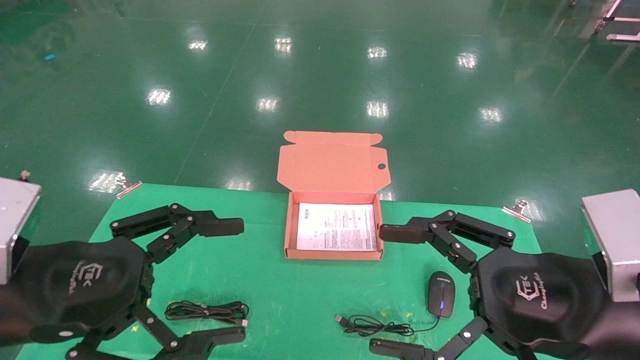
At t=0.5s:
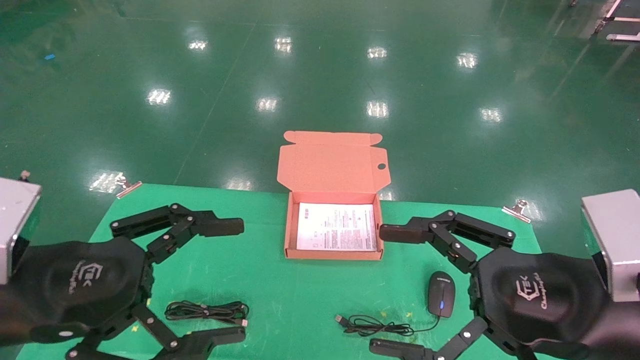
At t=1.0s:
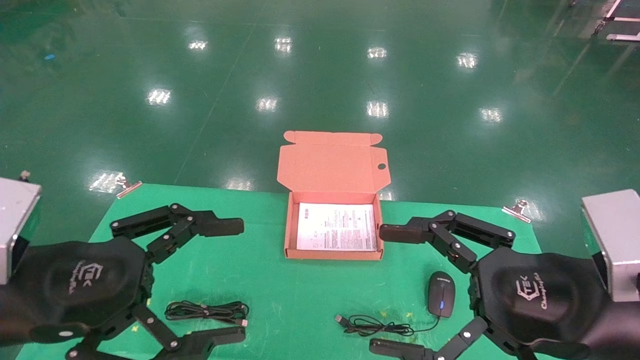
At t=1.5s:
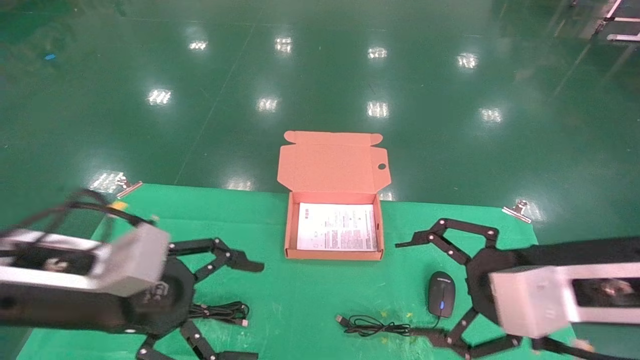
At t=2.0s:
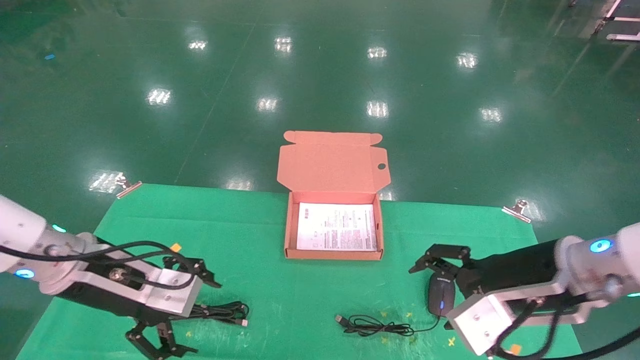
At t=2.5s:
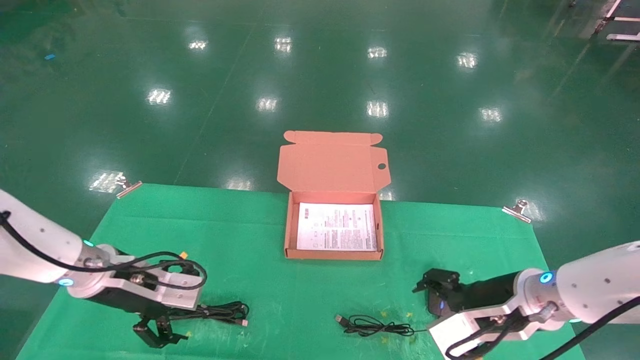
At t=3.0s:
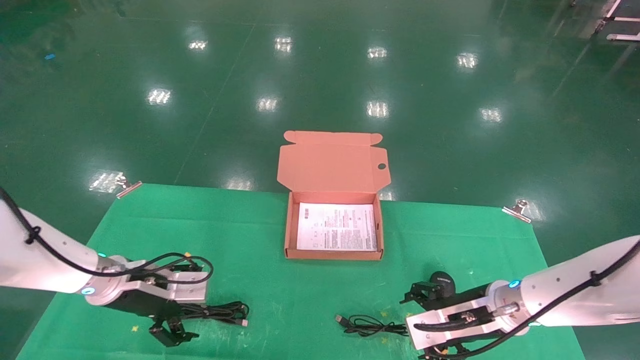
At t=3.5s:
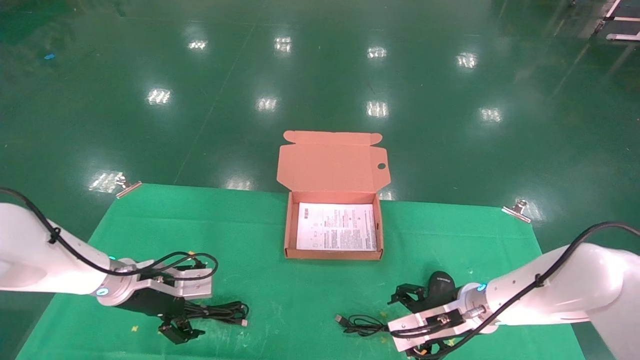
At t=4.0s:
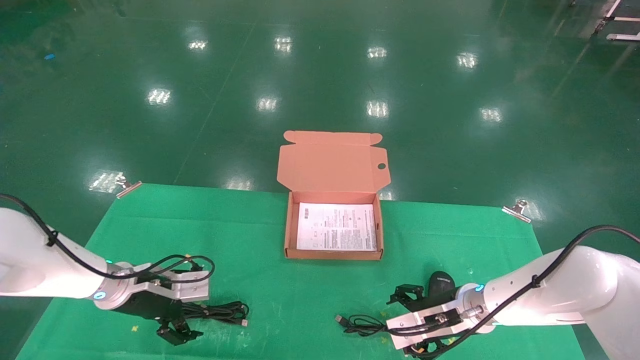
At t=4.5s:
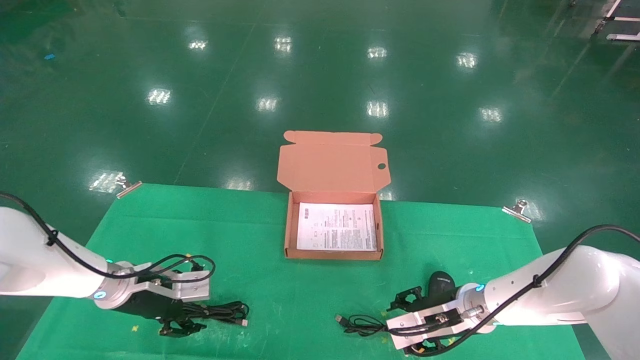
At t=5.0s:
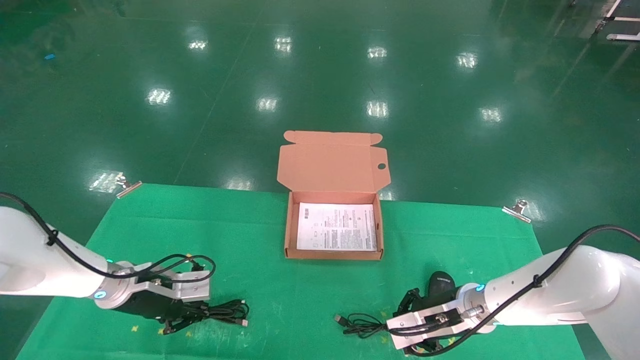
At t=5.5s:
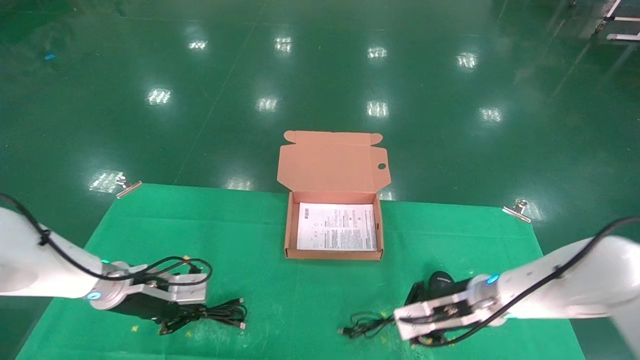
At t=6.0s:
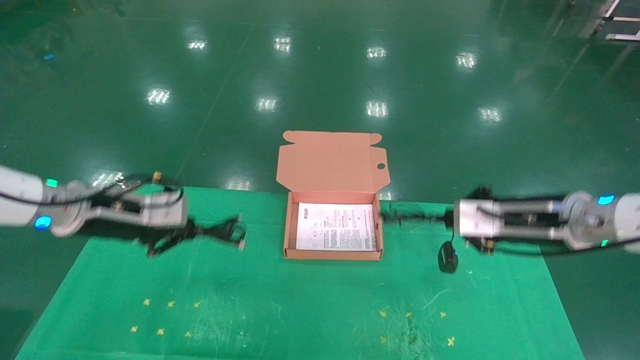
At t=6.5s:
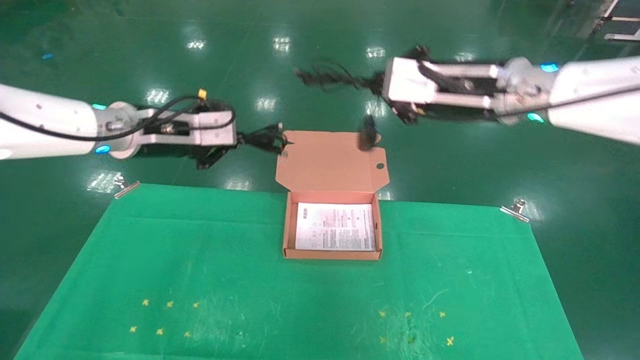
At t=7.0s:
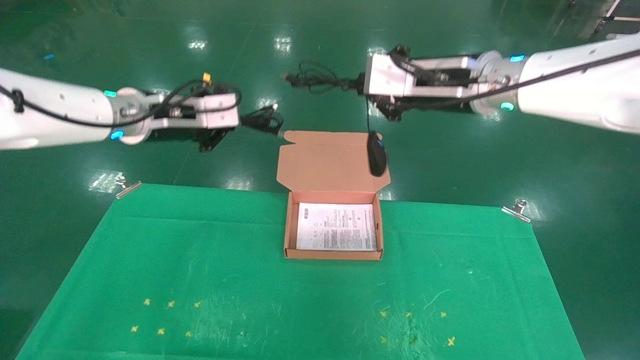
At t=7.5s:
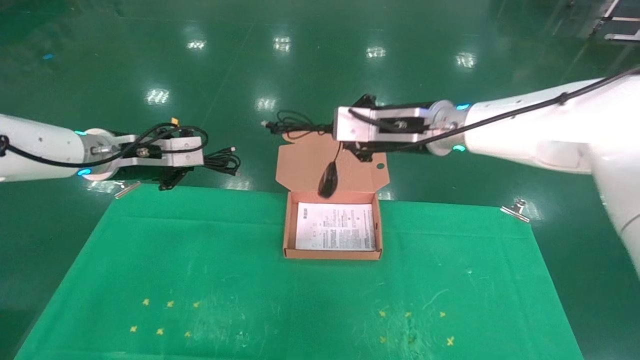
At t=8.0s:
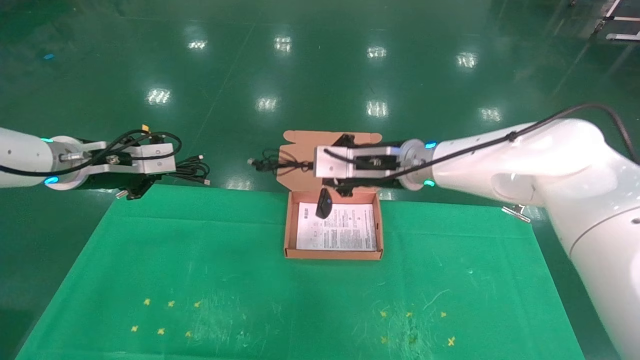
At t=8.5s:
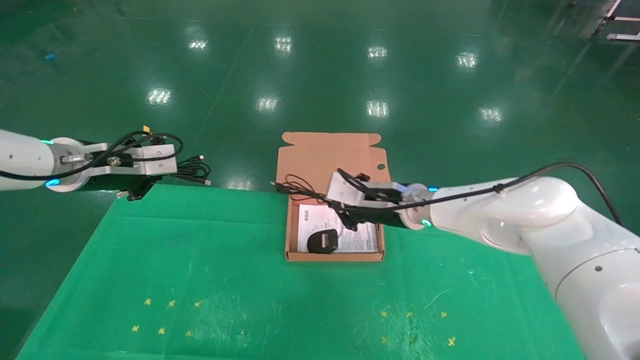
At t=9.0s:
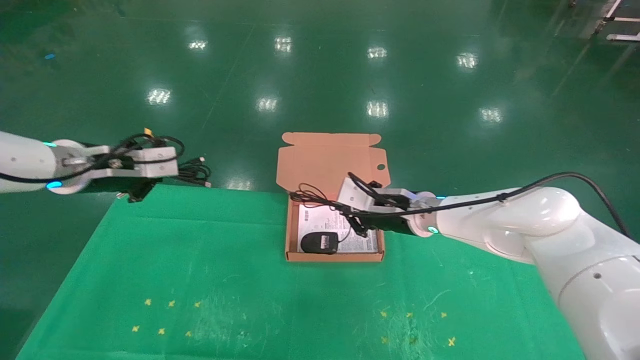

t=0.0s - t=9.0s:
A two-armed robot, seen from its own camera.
Task of the whole recording: grasp data cable left put into box grasp mouse right put into box.
Step, t=1.0s - t=5.0s: Grab and pick up both the mouse and power cord from the accessory packaging area at the same time.
t=0.0s - t=2.0s: The right gripper moves forward, about 10 cm; the left gripper goes about 15 cm forward and downward.
t=2.0s - t=4.5s: The grippers both shift downward and forward by roughly 15 cm.
t=4.5s - t=7.0s: Both grippers travel together upward, roughly 25 cm. The left gripper closes, while the right gripper closes up.
t=7.0s - t=9.0s: The right gripper goes some 15 cm downward.

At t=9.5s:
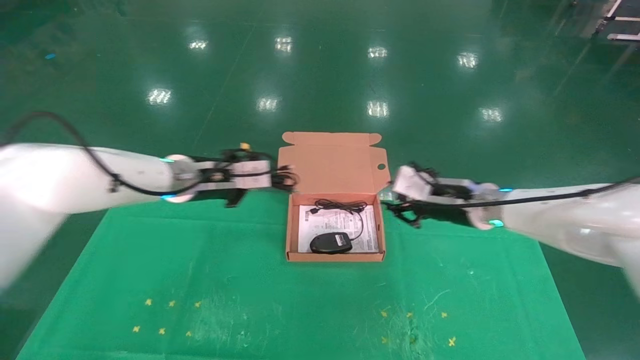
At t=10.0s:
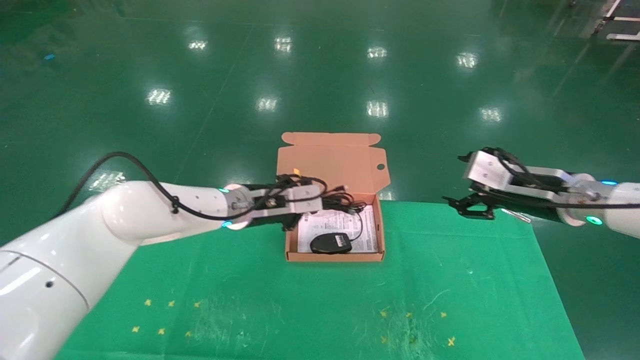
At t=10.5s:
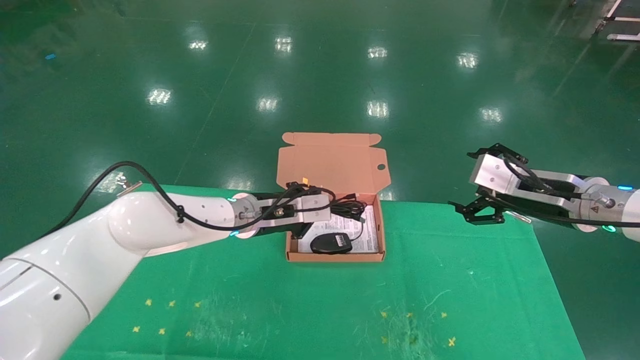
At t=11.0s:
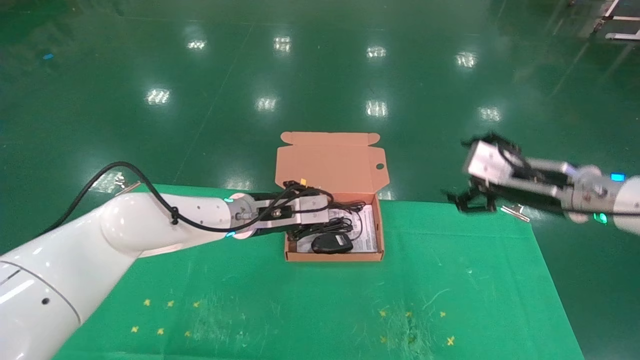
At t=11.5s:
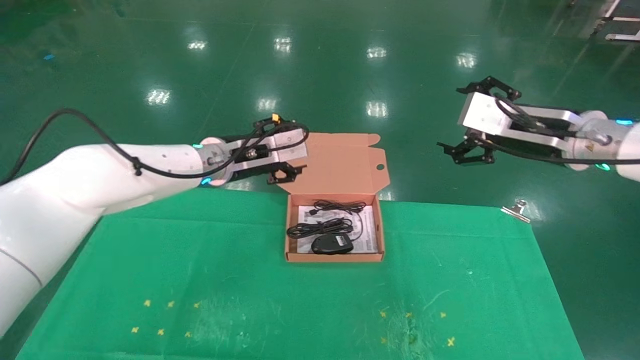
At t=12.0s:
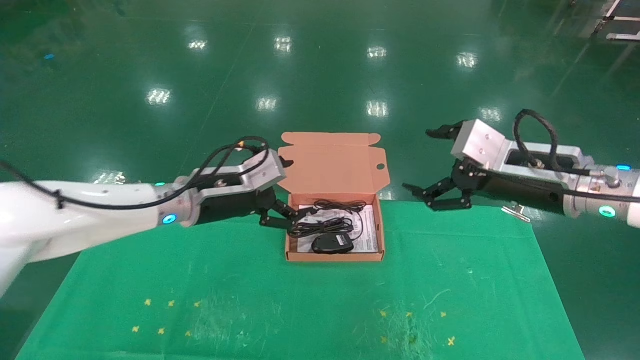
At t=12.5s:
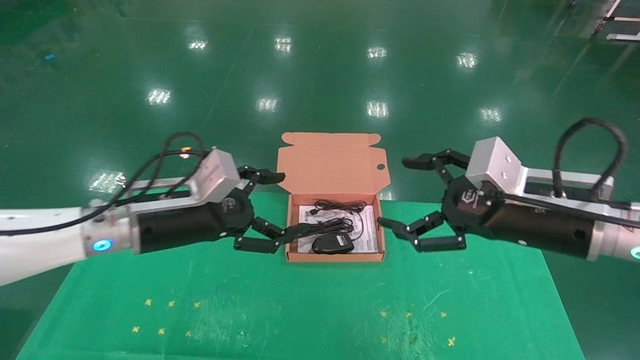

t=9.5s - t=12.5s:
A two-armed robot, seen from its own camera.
Task of the whole recording: grasp data cable left put into box grasp mouse right put into box.
t=9.5s - t=11.0s: The left gripper goes some 5 cm to the right. Meanwhile the right gripper goes approximately 10 cm backward, to the right and upward, and opens up.
t=11.0s - t=12.5s: The grippers both shift backward and to the left by approximately 15 cm. The left gripper opens.

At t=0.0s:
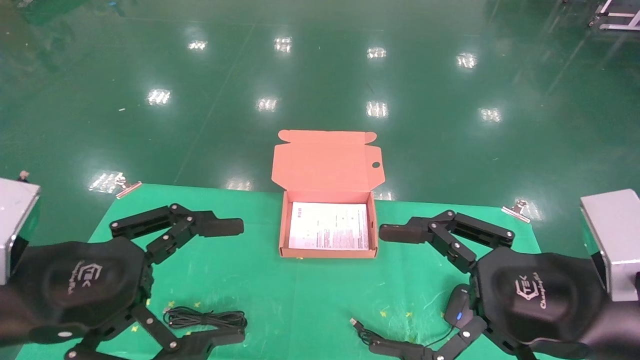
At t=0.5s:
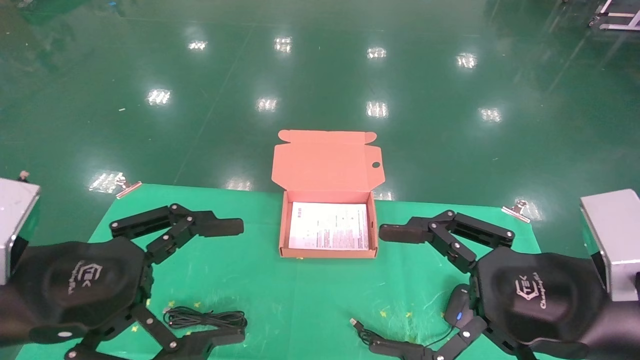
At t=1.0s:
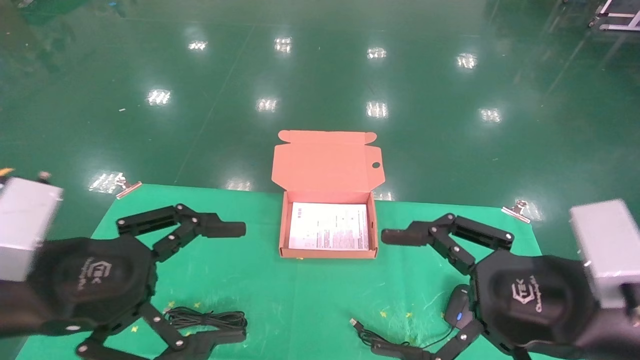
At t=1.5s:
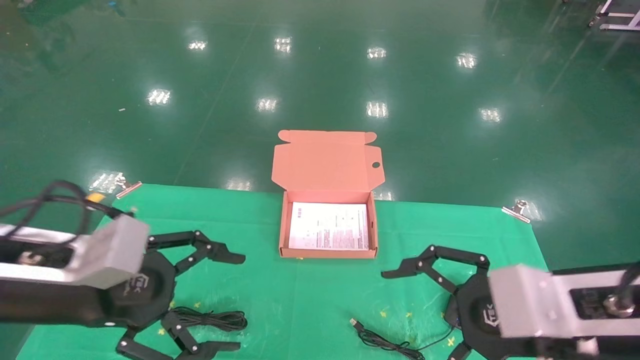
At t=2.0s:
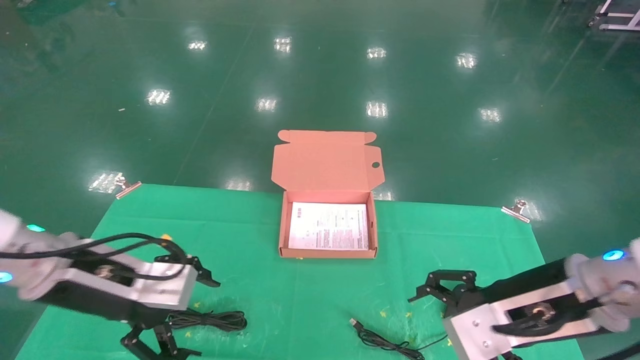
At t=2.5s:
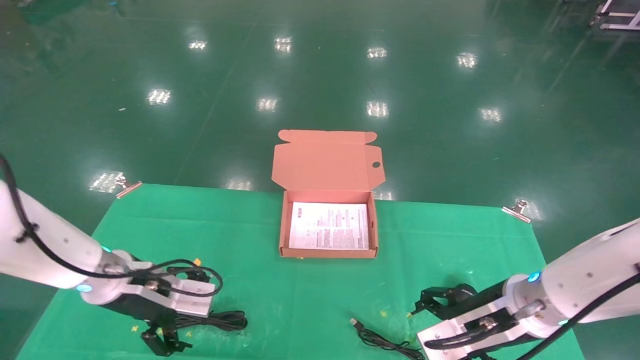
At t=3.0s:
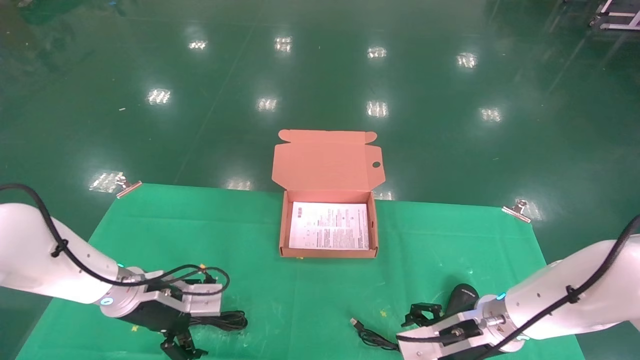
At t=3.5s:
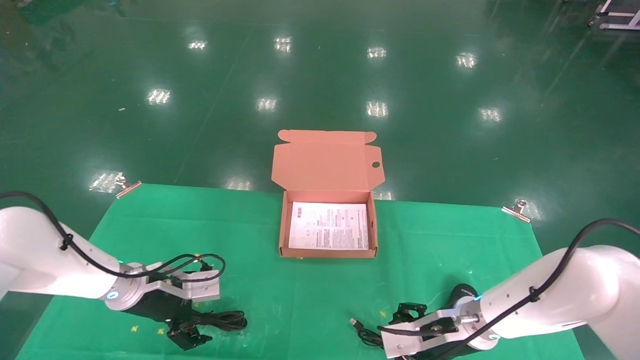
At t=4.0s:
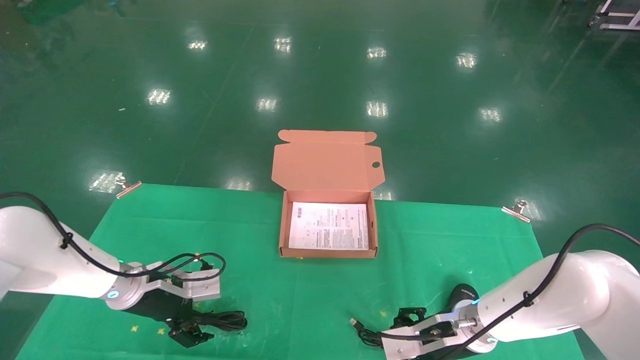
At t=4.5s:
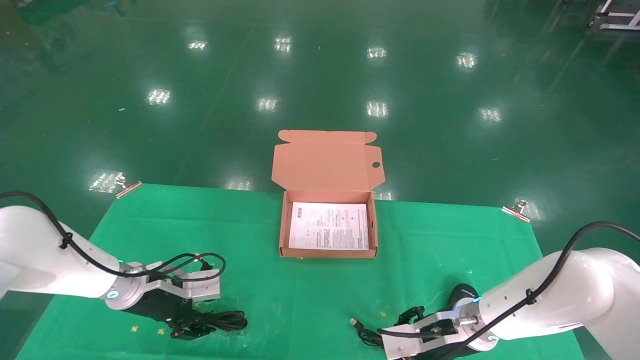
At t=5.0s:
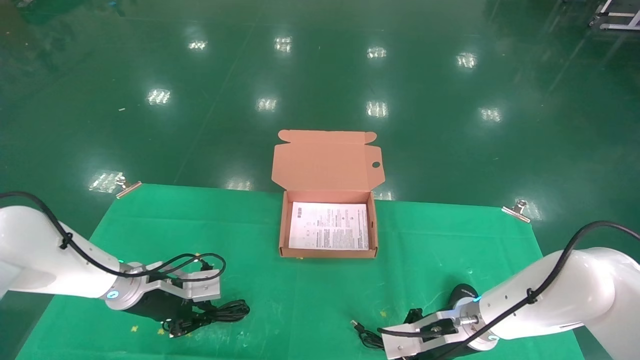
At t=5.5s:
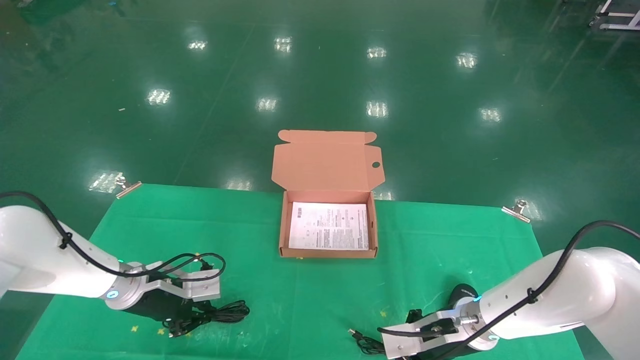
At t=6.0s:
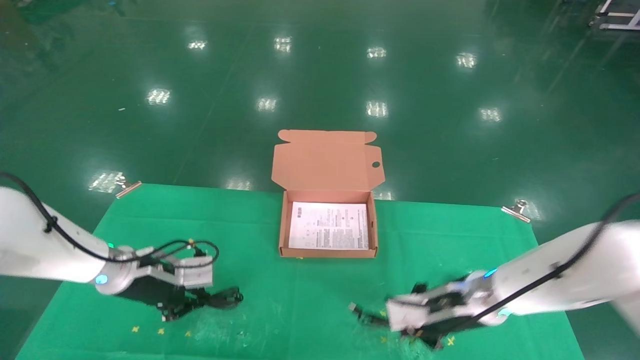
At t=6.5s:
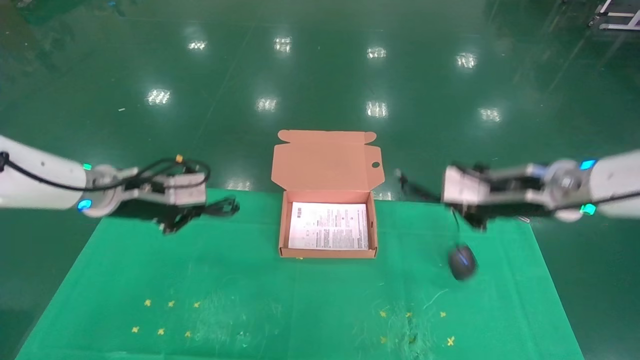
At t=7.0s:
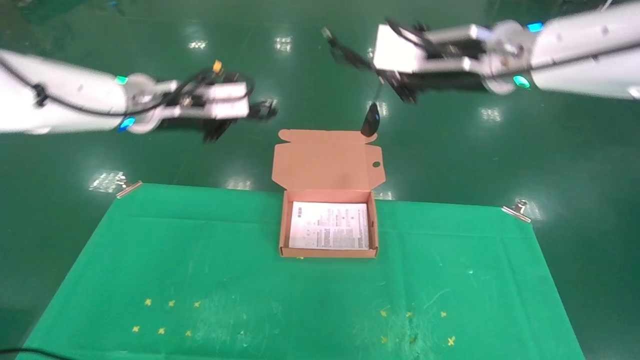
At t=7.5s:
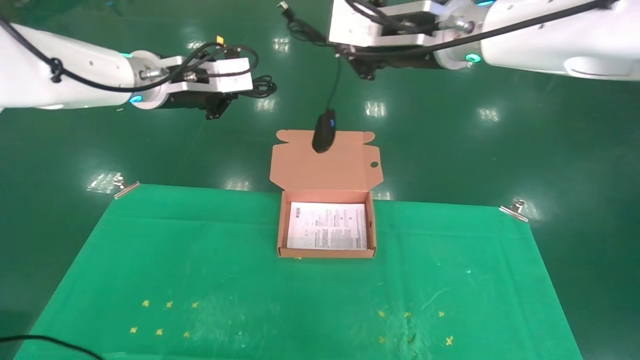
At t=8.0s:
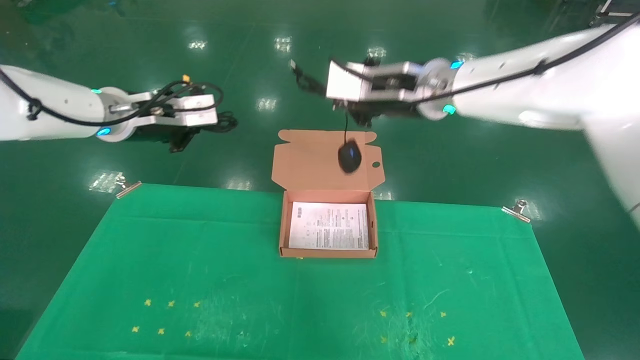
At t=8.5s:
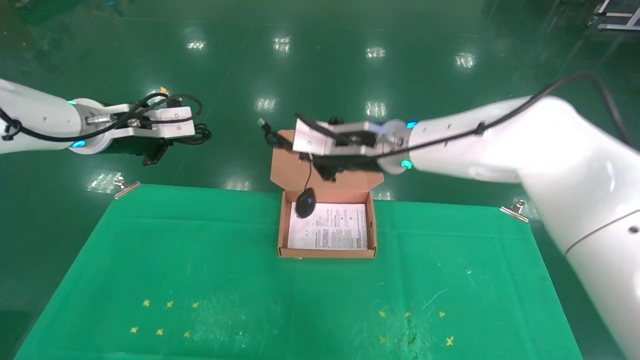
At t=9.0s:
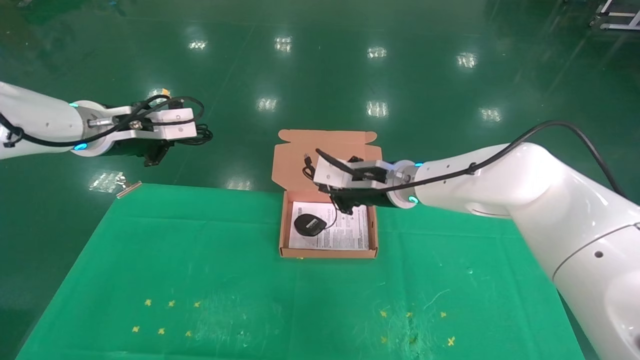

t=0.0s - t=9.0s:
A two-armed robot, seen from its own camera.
Task of the whole recording: grasp data cable left put into box grasp mouse right put into box.
Step, t=1.0s - t=6.0s: Grab and pick up both the mouse and power cord from the accessory packaging area at the same time.
t=0.0s - t=2.0s: Both grippers travel together forward, approximately 10 cm.
t=2.0s - t=4.5s: The right gripper goes roughly 20 cm downward and forward, while the left gripper is displaced forward and downward by some 15 cm, and closes up.
t=4.5s - t=7.0s: Both grippers travel together upward, approximately 30 cm. The left gripper closes up; the right gripper closes up.
t=7.0s - t=9.0s: The right gripper goes about 20 cm downward, forward and to the left. Meanwhile the left gripper is displaced to the left by about 5 cm.
